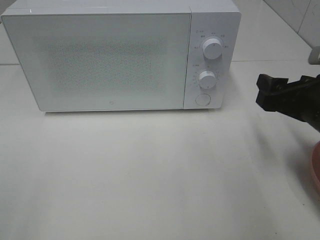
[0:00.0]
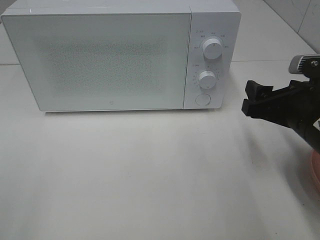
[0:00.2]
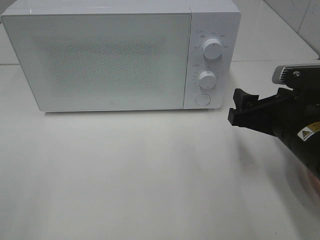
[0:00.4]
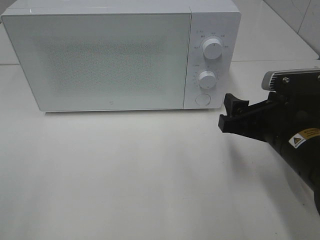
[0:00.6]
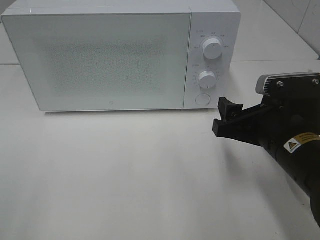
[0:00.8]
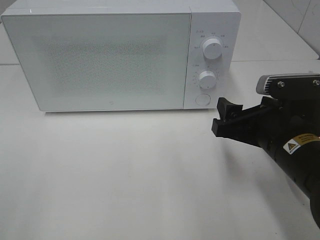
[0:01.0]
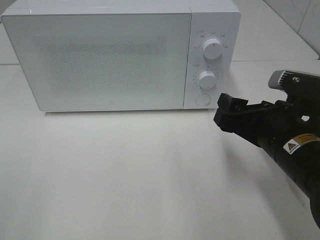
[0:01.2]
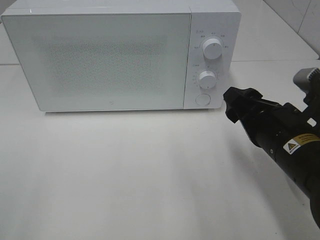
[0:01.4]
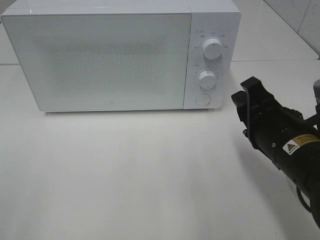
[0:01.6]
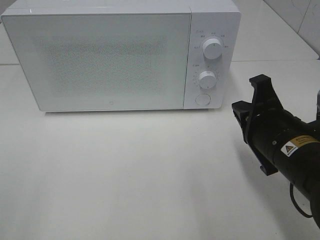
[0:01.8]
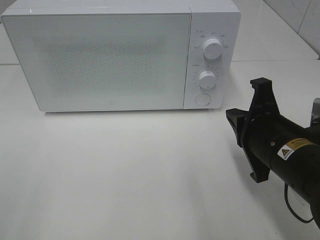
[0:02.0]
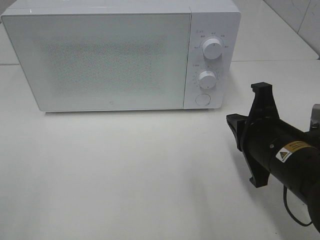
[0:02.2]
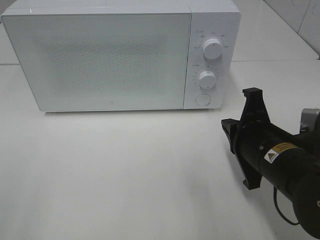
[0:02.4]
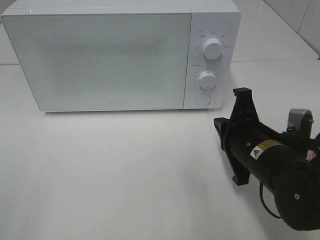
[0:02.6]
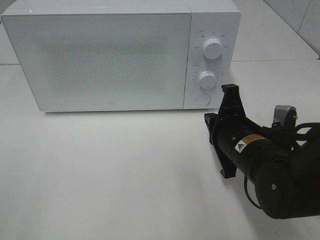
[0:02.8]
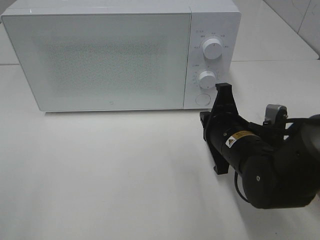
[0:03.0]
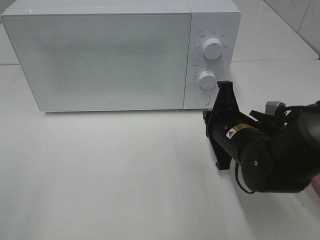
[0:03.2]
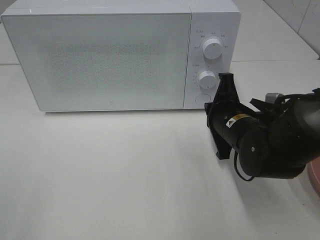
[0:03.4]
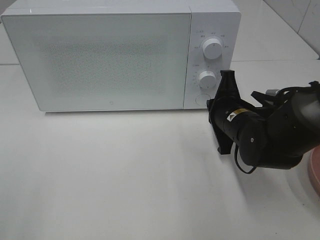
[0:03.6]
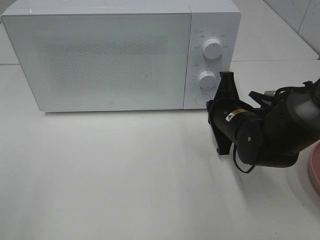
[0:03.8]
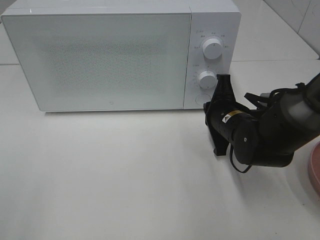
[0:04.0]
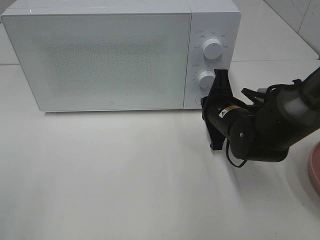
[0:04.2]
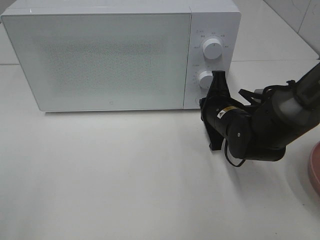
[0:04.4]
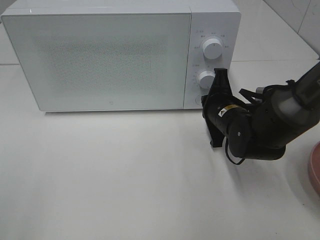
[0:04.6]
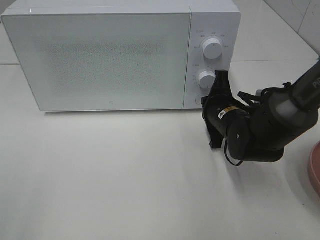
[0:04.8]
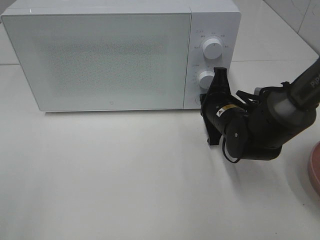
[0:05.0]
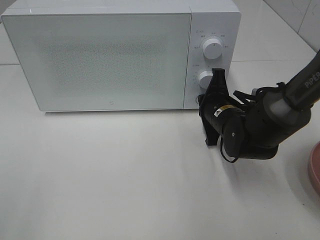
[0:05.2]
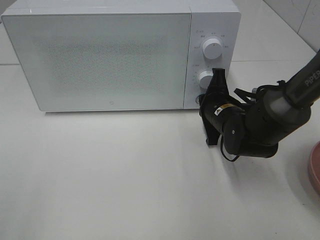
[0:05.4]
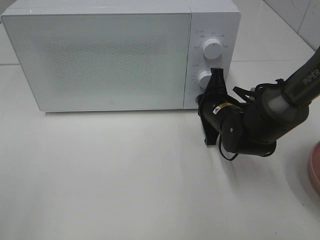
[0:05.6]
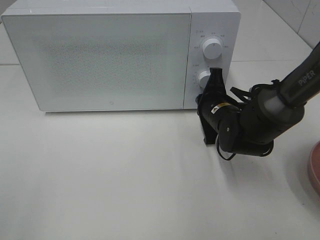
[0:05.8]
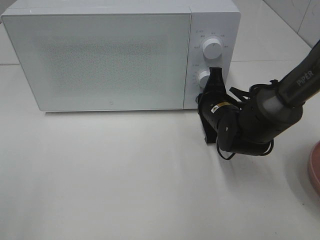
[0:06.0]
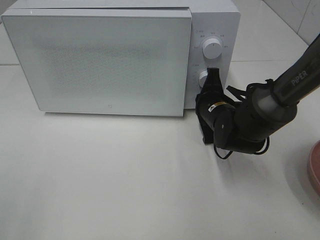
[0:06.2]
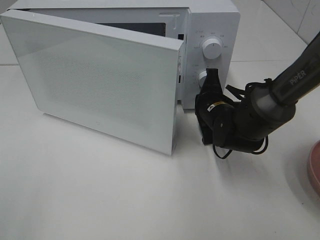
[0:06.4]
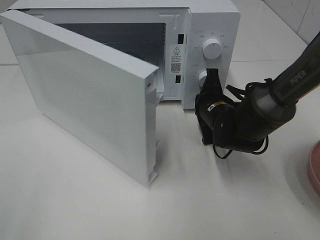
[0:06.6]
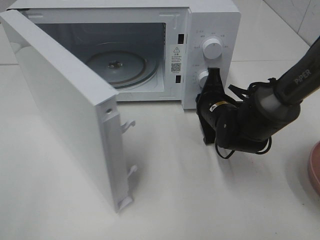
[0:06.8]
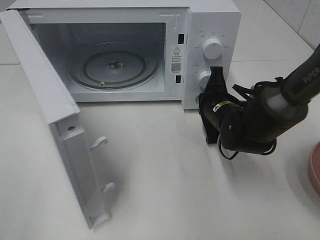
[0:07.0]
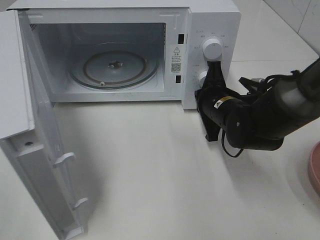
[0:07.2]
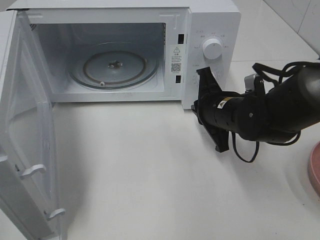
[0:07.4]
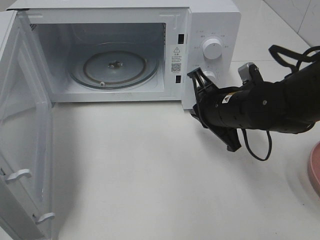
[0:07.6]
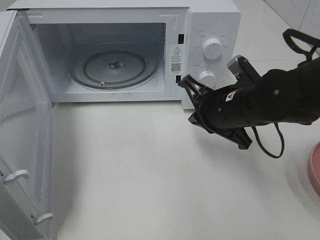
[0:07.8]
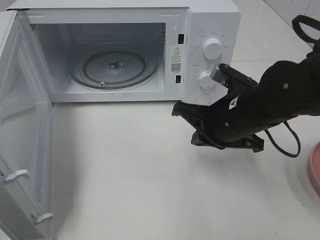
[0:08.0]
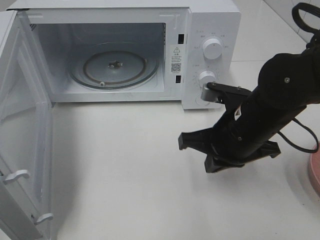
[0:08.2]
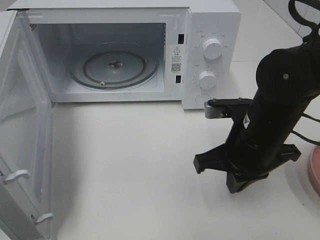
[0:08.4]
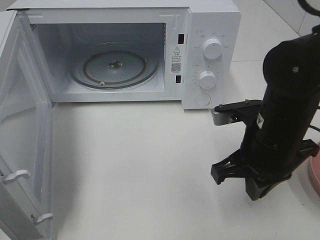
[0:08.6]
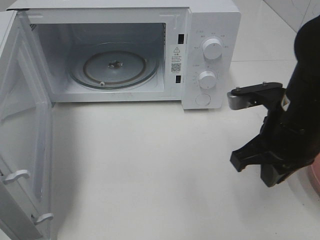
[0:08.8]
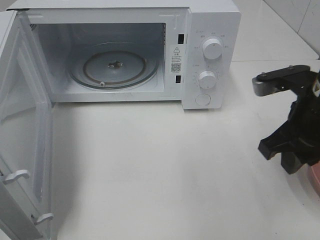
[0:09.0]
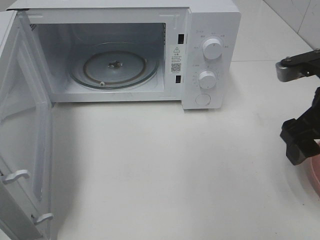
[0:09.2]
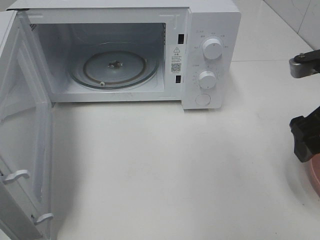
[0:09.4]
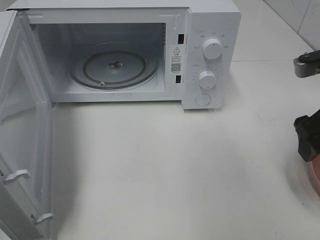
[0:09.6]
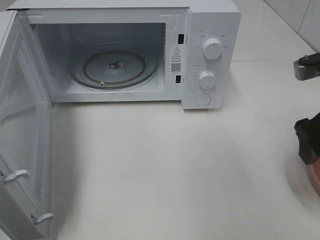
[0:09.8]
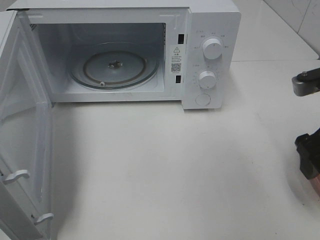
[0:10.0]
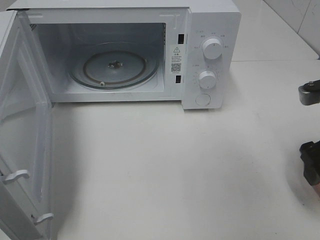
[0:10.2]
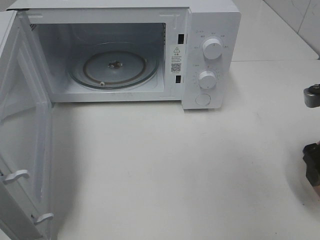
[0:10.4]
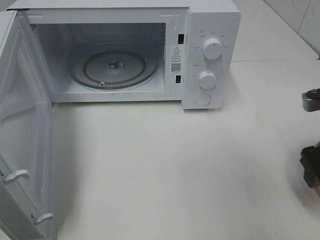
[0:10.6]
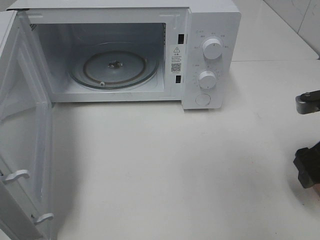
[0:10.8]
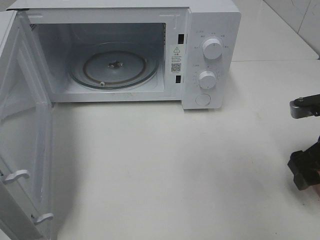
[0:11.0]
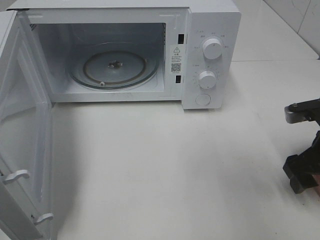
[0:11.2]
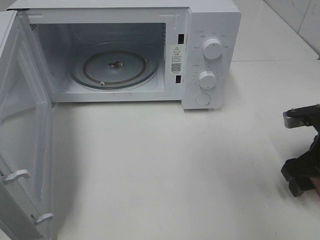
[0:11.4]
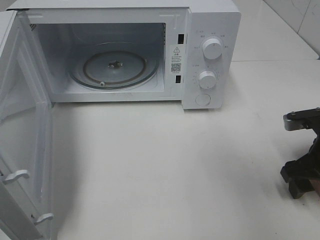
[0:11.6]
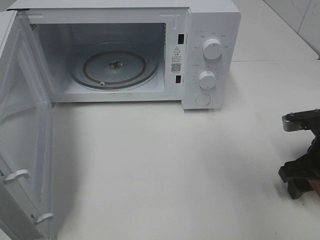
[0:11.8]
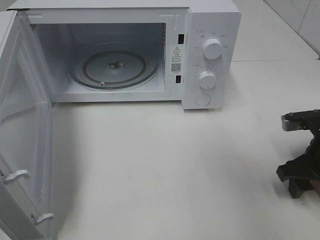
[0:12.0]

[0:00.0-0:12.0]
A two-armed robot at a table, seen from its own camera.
Task of the whole recording: Heat the burger.
Step, 0:00.0 to 0:07.6: Right hand: press the switch.
0:00.0 to 0:01.6: The right gripper travels to the left by approximately 5 cm, and closes its fingers.
0:01.6 to 0:03.0: The right gripper changes place by about 10 cm, and closes its fingers.
0:03.0 to 0:04.4: The right gripper heads forward, covering roughly 10 cm.
0:04.4 to 0:06.0: There are only small adjustments of the grippers.
0:06.0 to 0:07.6: The right gripper moves upward and backward, about 10 cm.
0:07.6 to 0:09.0: The right gripper moves to the right, upward and backward, roughly 15 cm, and opens.
0:09.0 to 0:10.4: The right gripper is displaced to the right by some 5 cm, and opens its fingers.
0:10.4 to 0:12.0: The right gripper shifts some 10 cm downward.

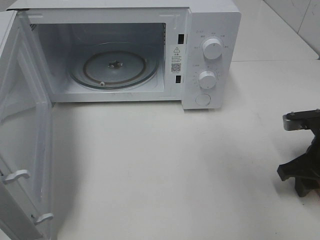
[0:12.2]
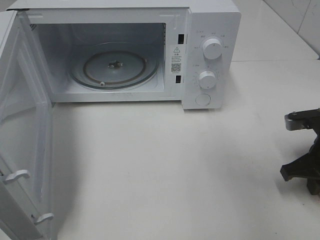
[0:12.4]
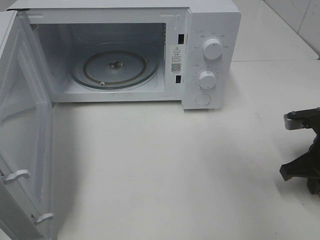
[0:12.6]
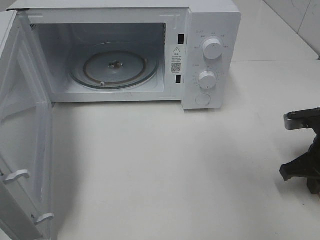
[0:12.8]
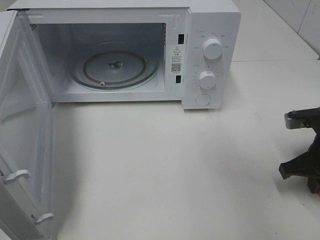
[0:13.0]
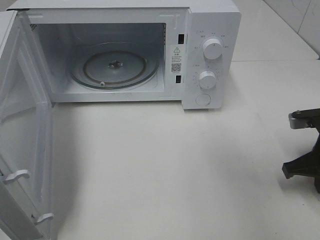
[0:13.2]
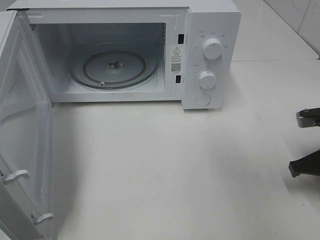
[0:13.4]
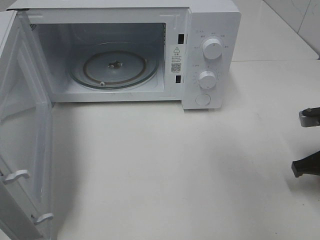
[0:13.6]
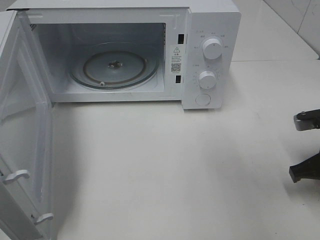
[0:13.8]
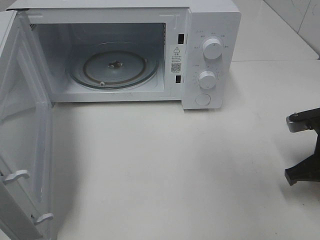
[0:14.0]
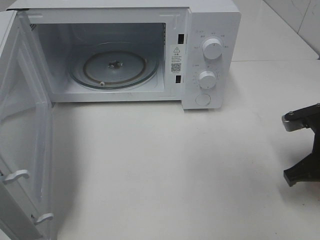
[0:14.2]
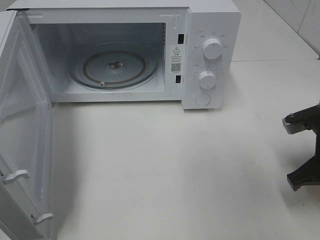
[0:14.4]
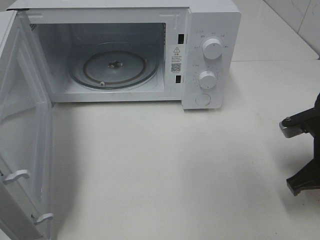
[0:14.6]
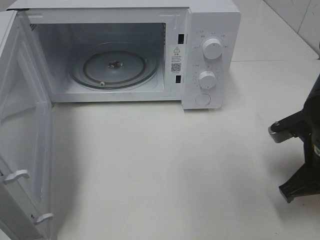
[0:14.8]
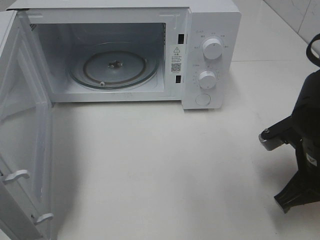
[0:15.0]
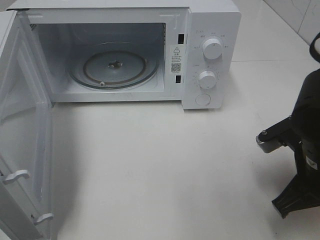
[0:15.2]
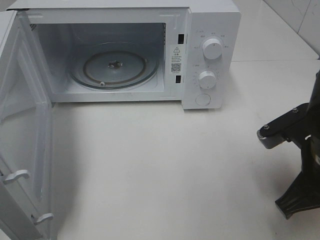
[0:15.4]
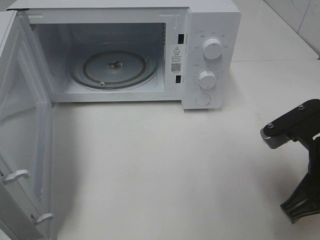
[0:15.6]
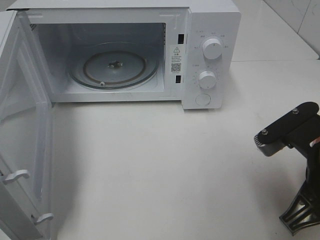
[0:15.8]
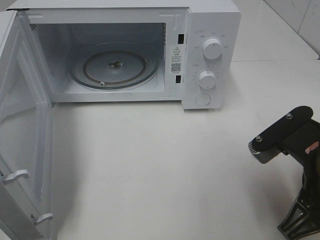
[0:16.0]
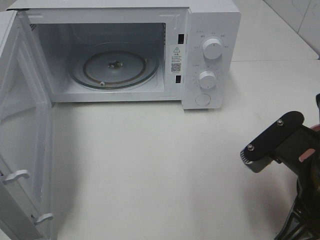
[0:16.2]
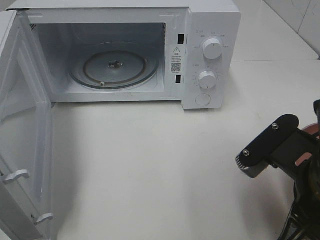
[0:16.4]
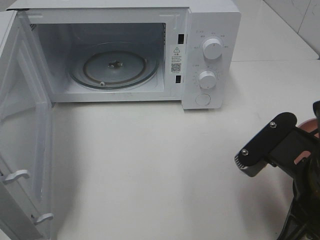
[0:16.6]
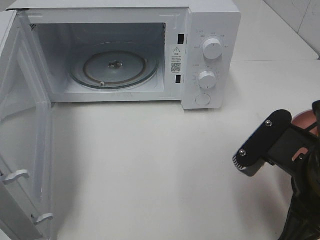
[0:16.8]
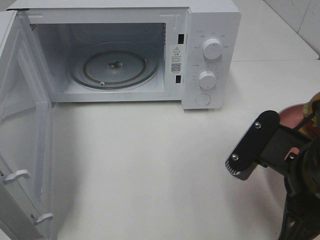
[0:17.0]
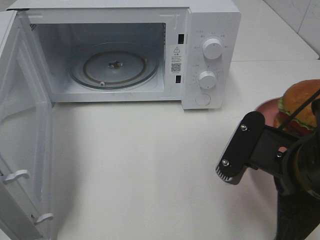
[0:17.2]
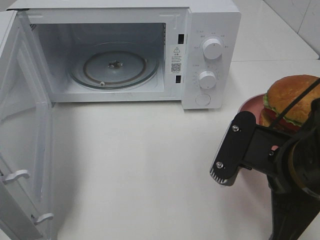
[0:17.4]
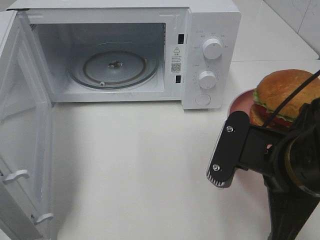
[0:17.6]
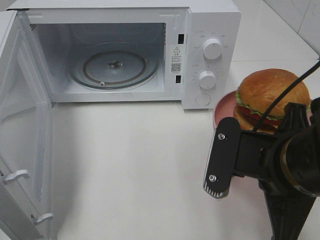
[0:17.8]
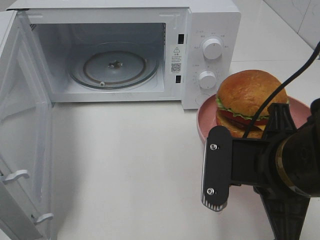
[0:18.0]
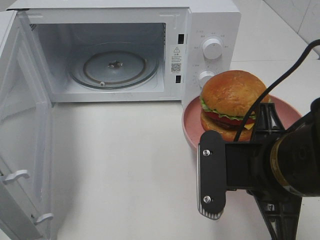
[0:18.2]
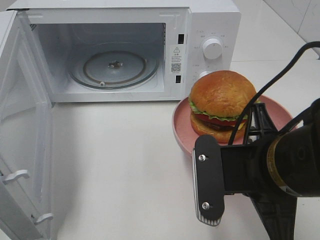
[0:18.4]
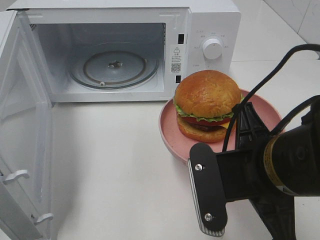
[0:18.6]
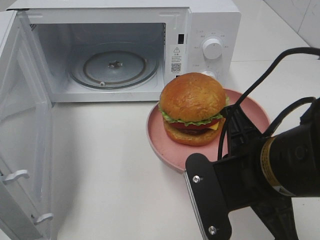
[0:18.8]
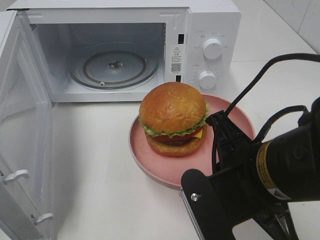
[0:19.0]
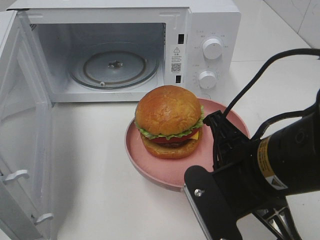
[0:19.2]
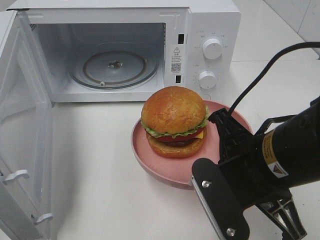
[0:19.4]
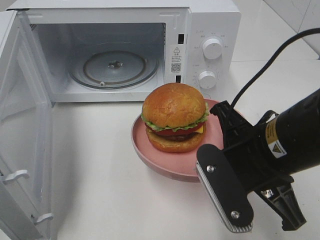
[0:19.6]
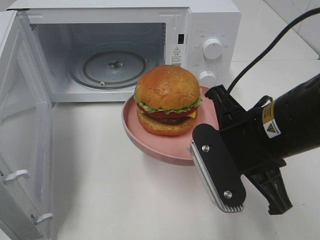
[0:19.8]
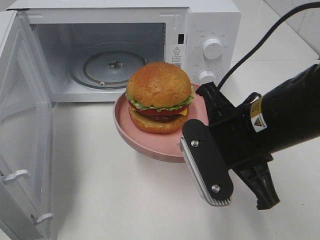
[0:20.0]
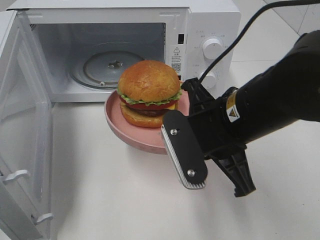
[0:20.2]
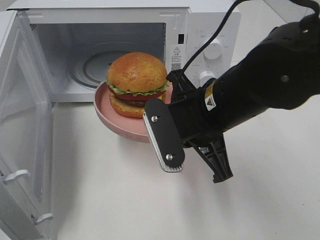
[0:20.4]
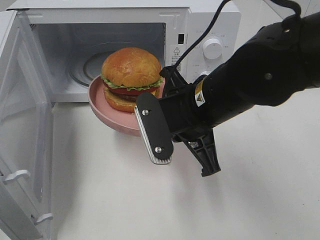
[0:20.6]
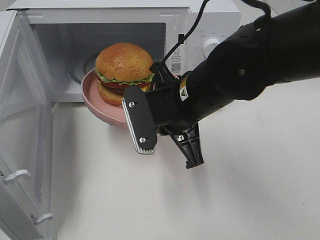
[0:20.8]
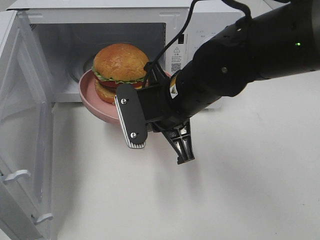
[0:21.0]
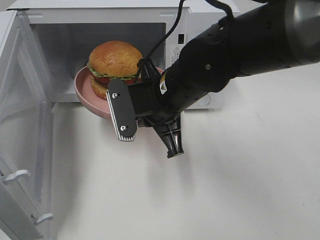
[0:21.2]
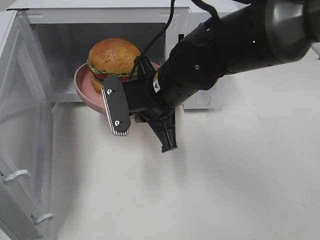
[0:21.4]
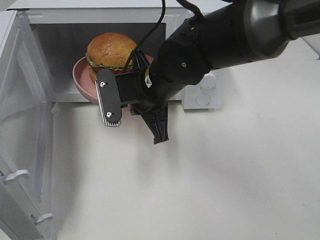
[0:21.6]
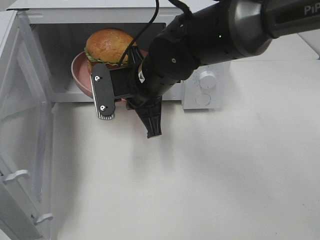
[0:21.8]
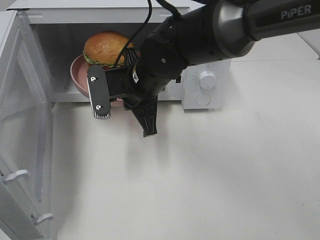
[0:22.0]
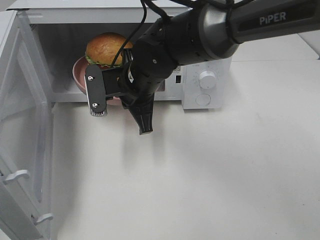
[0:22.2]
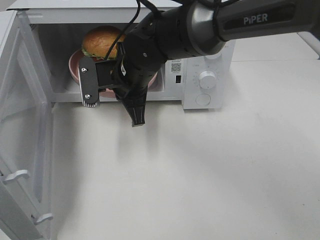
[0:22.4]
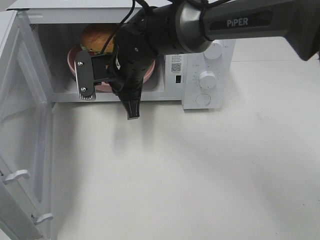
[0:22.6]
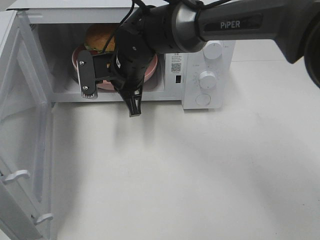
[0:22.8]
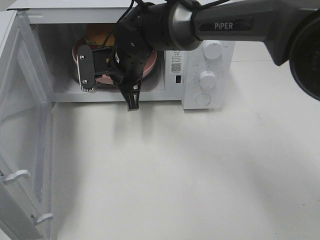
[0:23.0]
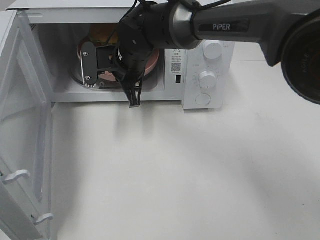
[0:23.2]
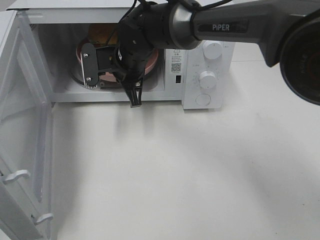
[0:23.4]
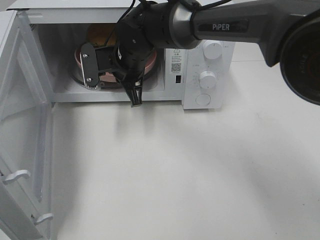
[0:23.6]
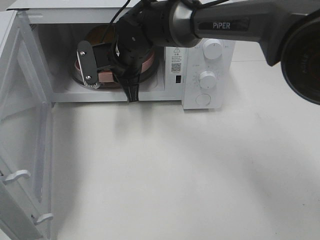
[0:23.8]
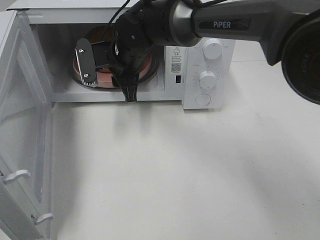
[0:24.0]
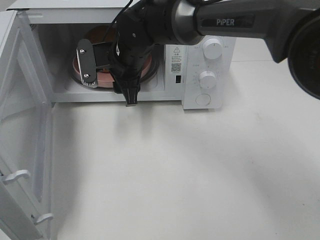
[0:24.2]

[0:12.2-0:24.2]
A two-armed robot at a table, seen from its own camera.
Task of the whole recording: Heat the burger.
Step, 0:13.2 to 0:24.0: Right hand: place the plate in the microwave.
0:12.2 to 0:13.8: The right gripper closes up.
0:13.8 to 0:15.2: The right gripper shifts roughly 10 cm to the left.
0:15.2 to 0:16.6: The right gripper travels backward by about 5 cm.
0:19.8 to 0:21.2: The right gripper is displaced to the left and forward by approximately 15 cm.
0:21.2 to 0:22.6: The right gripper is displaced forward and to the left by approximately 10 cm.
0:22.6 to 0:24.2: The right gripper opens.
